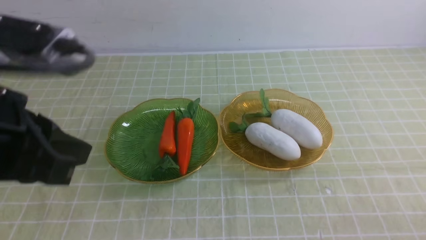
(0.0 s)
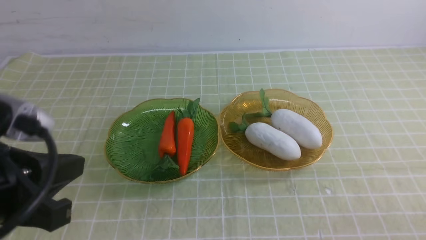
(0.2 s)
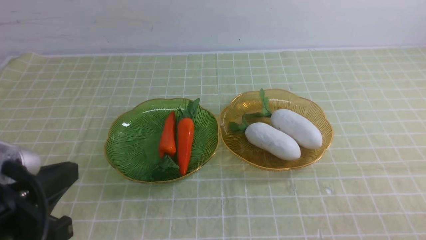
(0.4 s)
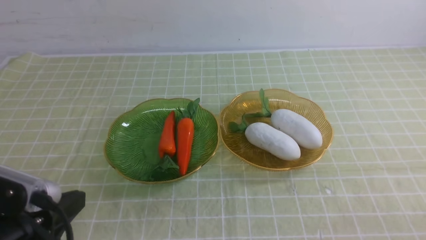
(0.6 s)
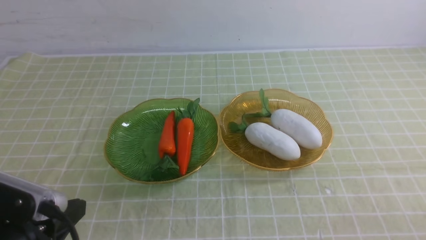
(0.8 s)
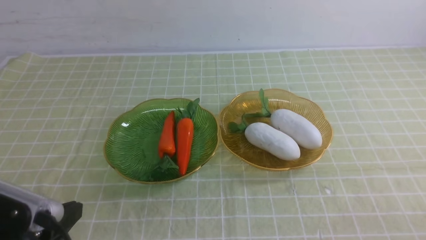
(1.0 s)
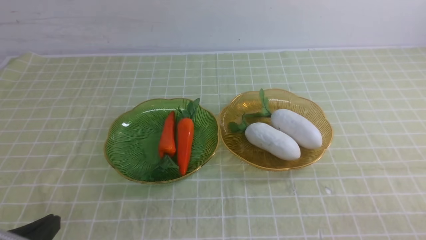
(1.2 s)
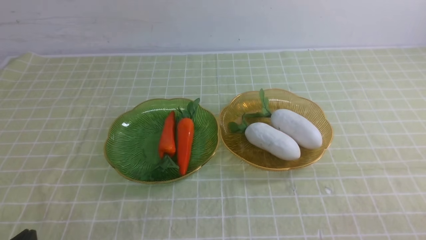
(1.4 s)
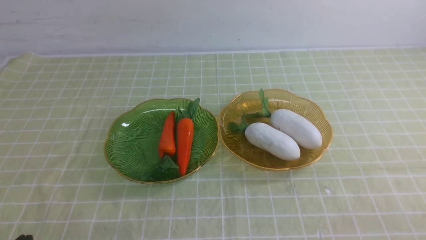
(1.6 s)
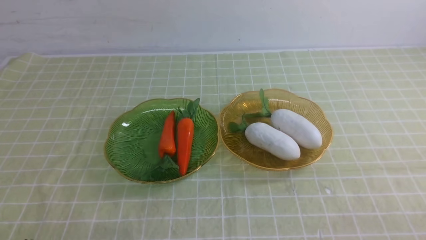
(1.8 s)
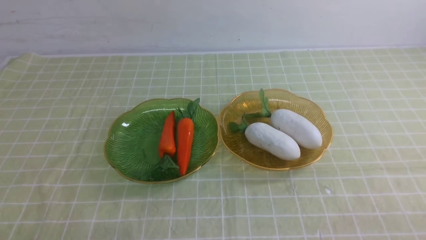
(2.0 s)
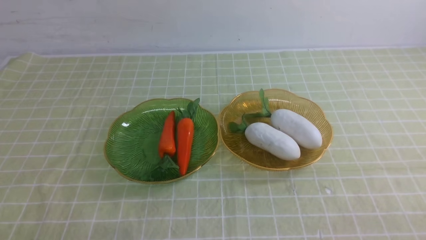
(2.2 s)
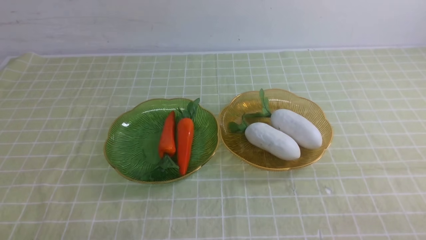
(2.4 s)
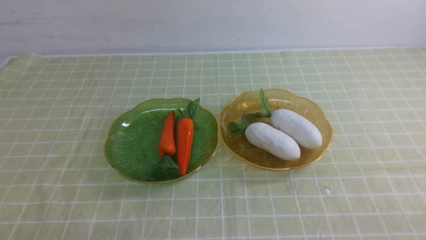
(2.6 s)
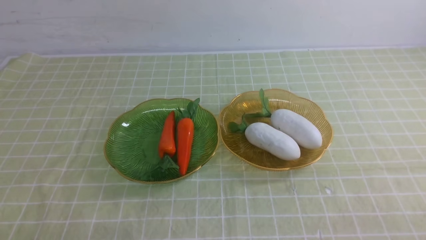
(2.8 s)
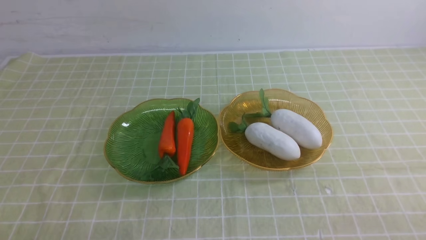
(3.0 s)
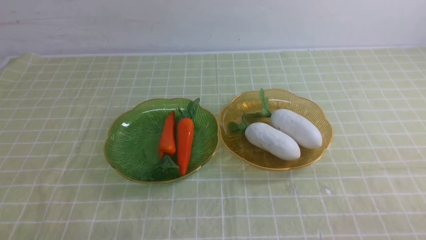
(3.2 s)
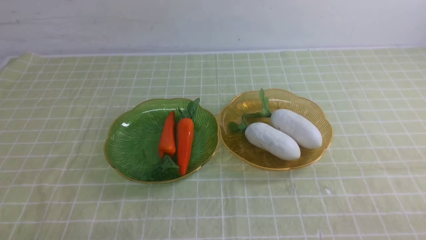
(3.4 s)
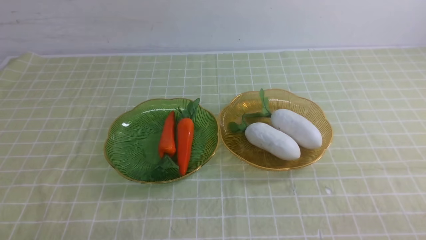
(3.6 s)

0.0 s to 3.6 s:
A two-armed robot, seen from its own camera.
0.0 to 1.8 s: The left gripper travels downward and backward by some 25 cm.
1.8 to 3.6 s: The two grippers keep their place.

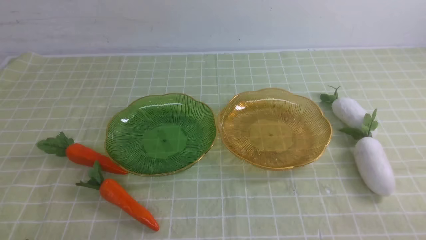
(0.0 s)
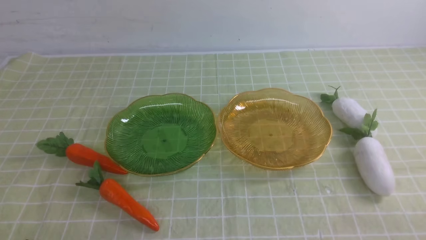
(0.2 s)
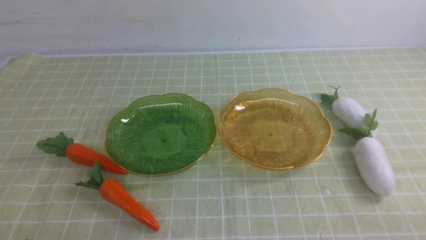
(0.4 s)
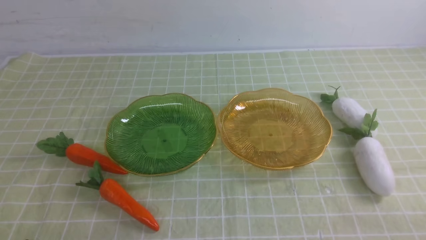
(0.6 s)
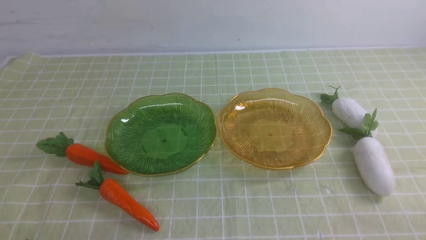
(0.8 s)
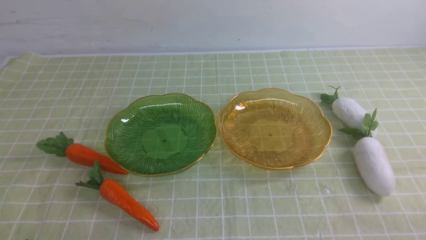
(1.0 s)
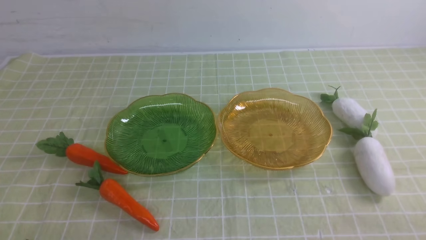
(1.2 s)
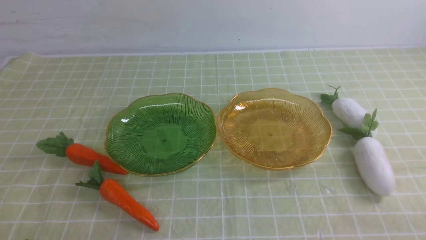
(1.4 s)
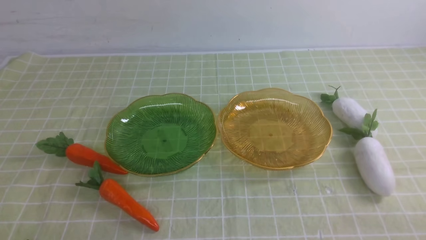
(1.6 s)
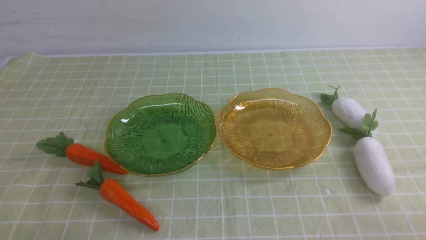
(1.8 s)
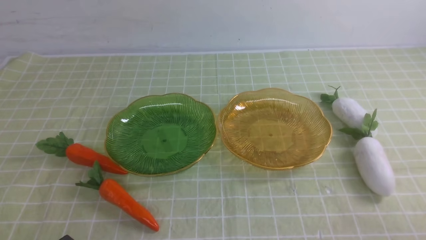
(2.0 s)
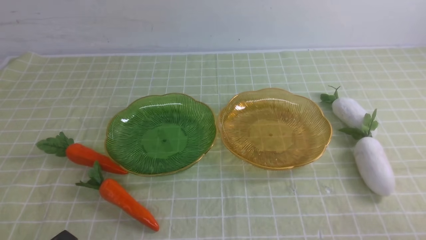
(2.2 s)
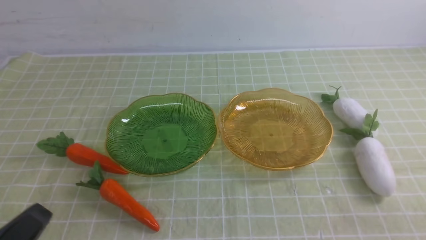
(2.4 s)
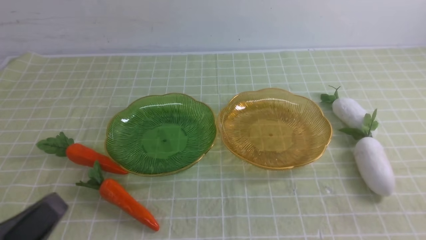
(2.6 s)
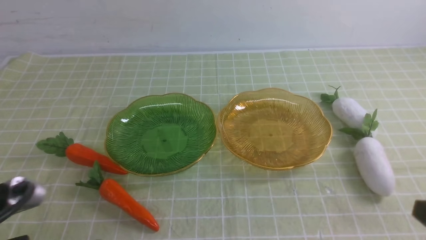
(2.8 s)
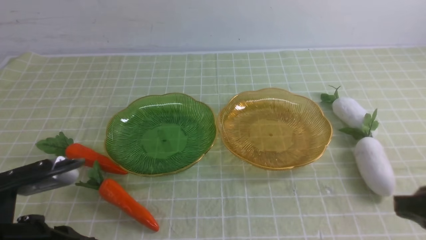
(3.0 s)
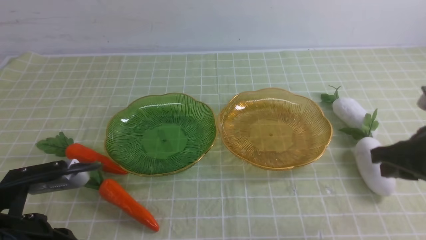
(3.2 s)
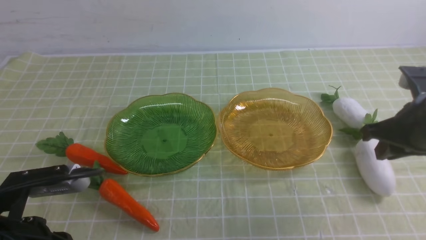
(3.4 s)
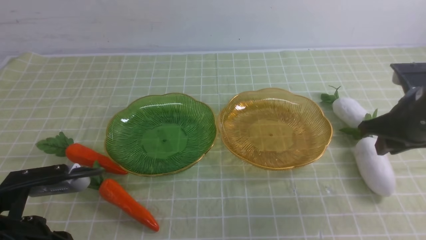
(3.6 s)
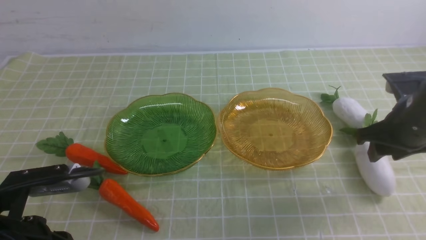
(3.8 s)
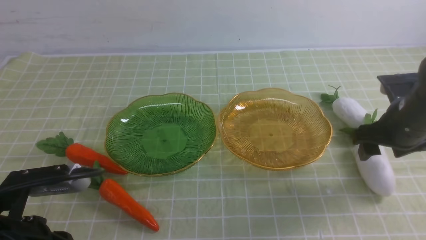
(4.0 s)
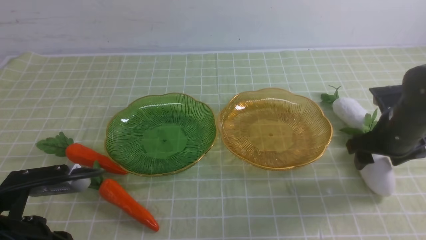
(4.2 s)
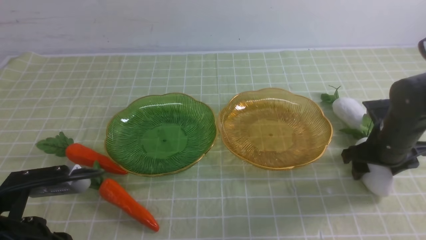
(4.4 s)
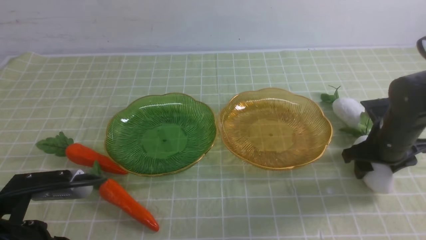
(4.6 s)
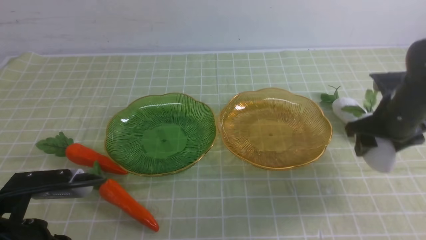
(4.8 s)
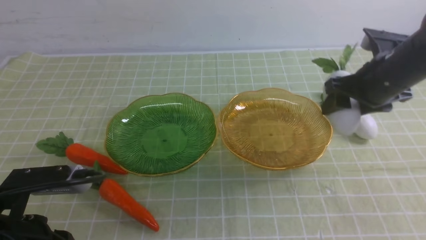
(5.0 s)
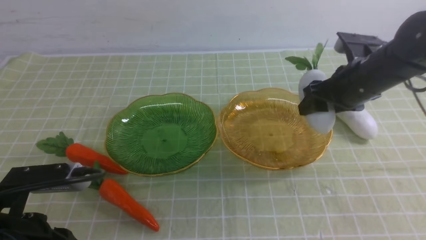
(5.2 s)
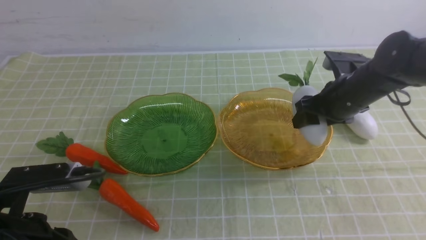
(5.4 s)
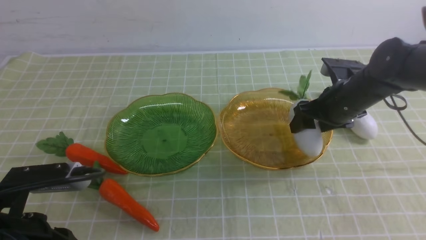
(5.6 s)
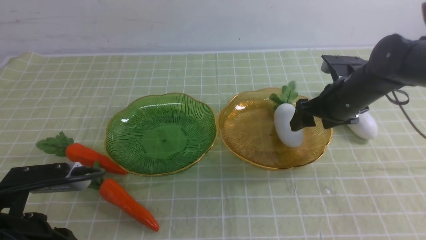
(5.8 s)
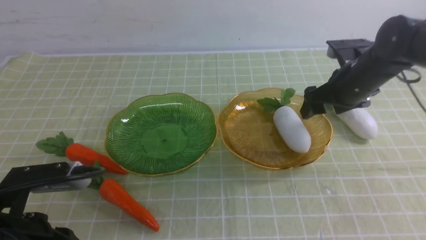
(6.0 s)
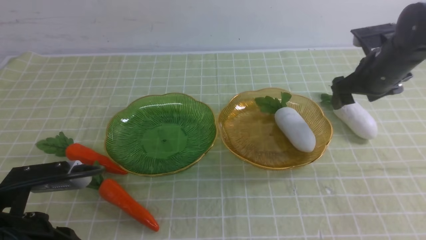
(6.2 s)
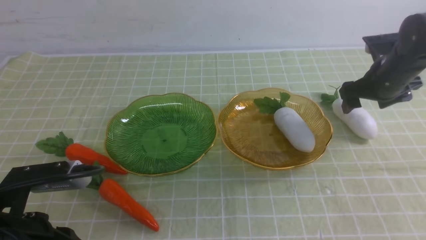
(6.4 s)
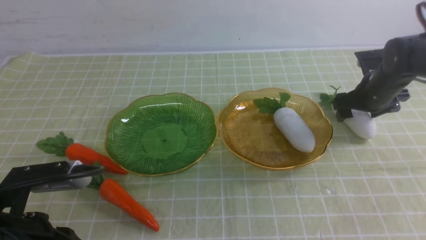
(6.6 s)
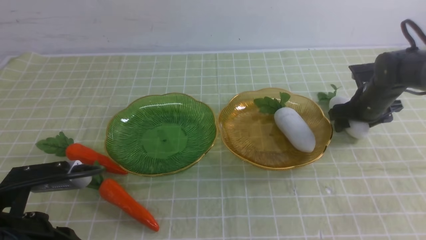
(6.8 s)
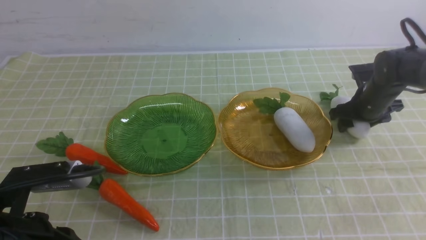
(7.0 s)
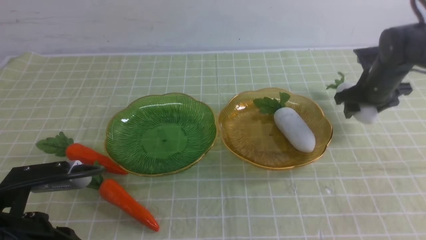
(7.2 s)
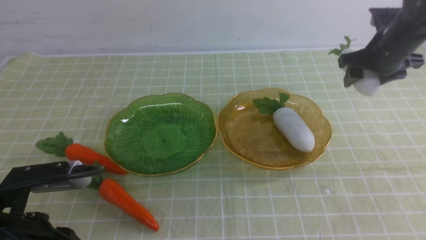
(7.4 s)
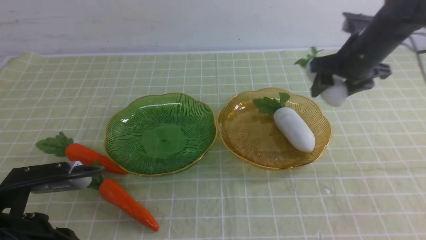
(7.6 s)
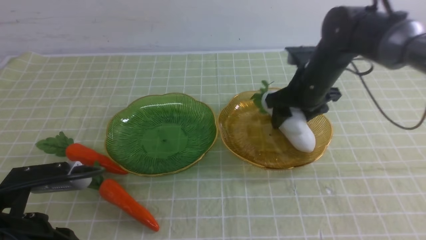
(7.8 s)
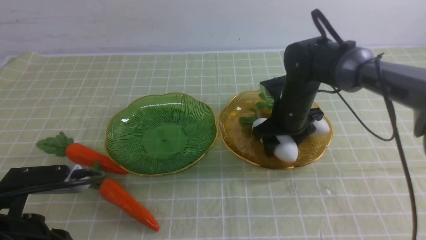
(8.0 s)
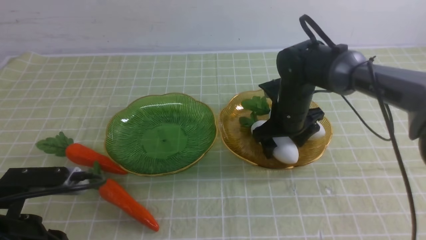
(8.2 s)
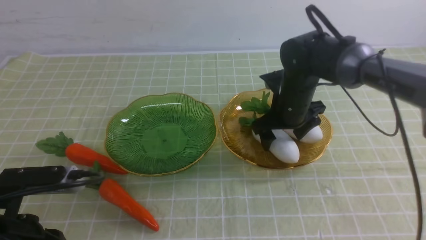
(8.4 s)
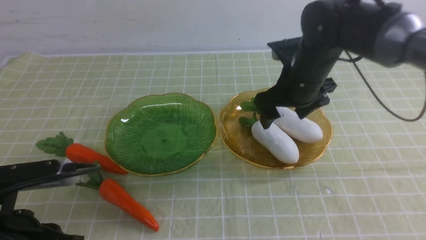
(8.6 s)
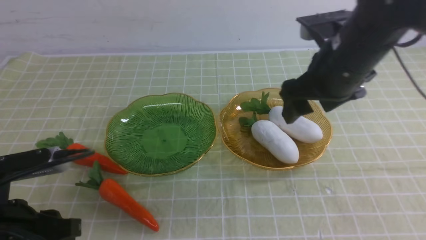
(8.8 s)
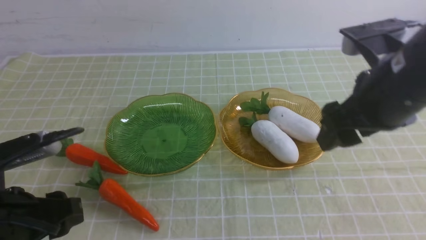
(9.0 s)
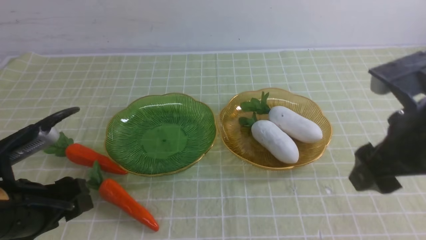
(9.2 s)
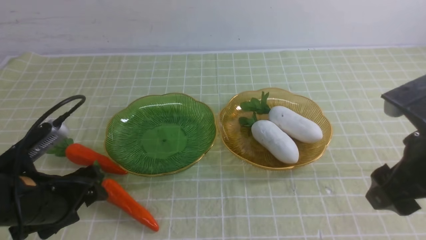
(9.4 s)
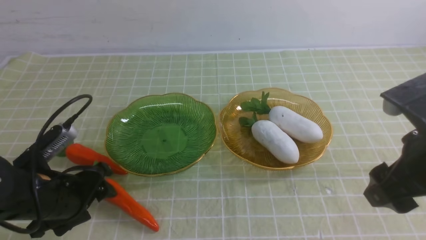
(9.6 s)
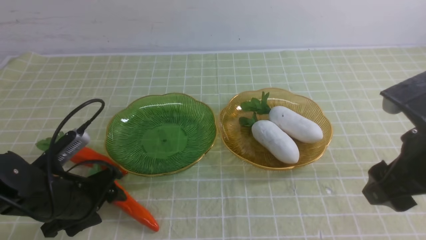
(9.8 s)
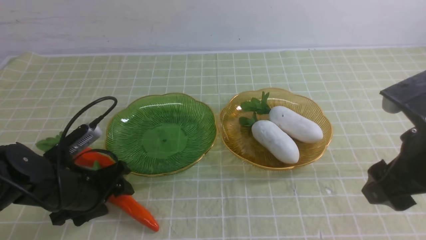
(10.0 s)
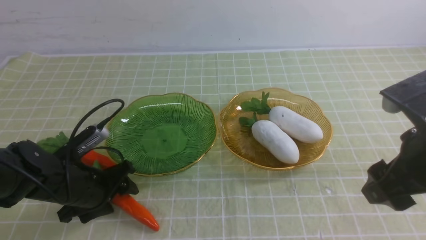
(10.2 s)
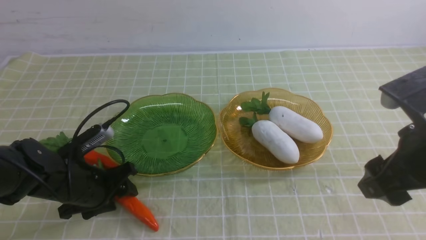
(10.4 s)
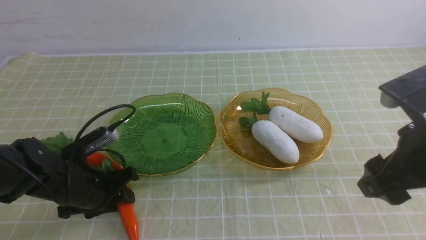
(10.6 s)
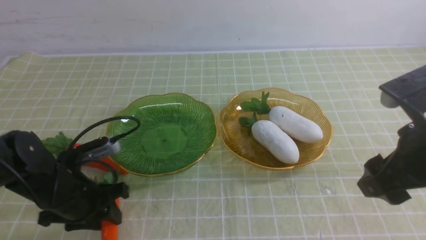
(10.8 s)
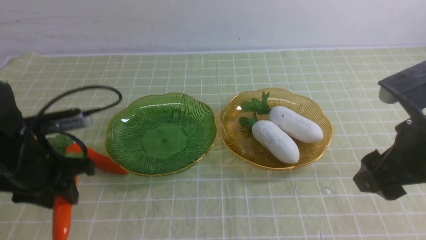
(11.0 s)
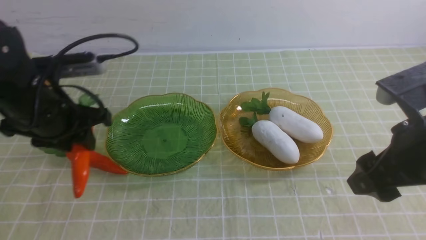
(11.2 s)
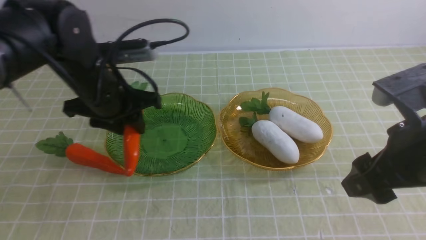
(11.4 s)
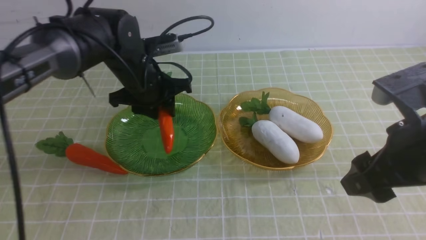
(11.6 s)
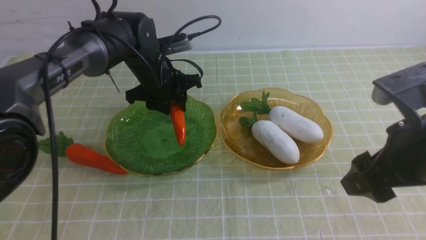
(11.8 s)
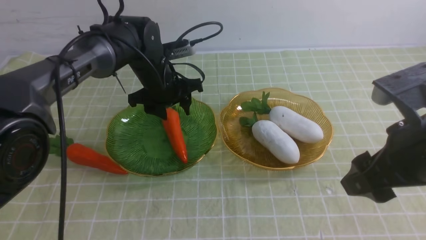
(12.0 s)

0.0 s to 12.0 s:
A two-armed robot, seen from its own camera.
Step, 0.0 to 6.2 s: use the right arm to grab a radish and put it into the right plate.
Step, 6.6 to 9.6 s: use the right arm to grab a radish and put it into the right plate.
1.6 to 3.0 s: The left gripper shifts roughly 10 cm upward and forward; the right gripper travels forward and upward by some 15 cm.
3.0 to 4.4 s: The right gripper shifts approximately 20 cm forward and downward, and opens its fingers.
4.4 to 6.0 s: The right gripper shifts approximately 10 cm forward and upward.
6.0 to 7.6 s: The right gripper moves some 5 cm downward and comes back.
7.6 to 9.0 s: The left gripper opens its fingers; the right gripper is displaced backward and upward by approximately 20 cm.
9.0 to 10.4 s: The right gripper shifts some 5 cm backward. The left gripper heads forward and downward, covering roughly 15 cm.
10.4 to 12.0 s: The left gripper goes some 25 cm forward, to the right and upward.

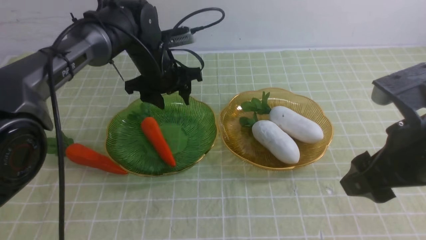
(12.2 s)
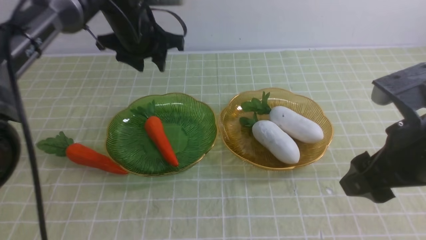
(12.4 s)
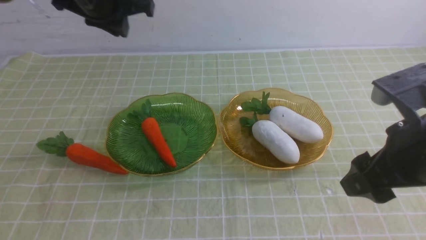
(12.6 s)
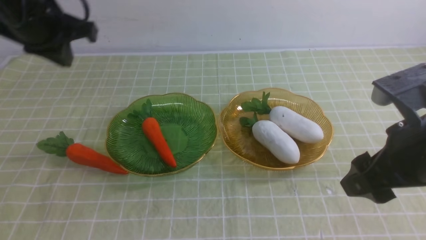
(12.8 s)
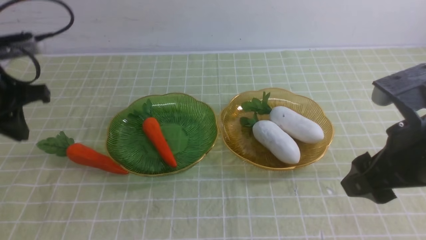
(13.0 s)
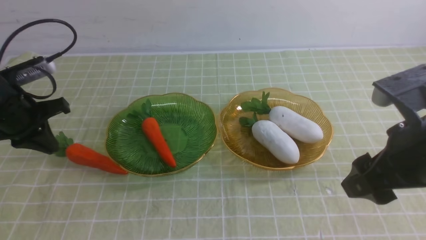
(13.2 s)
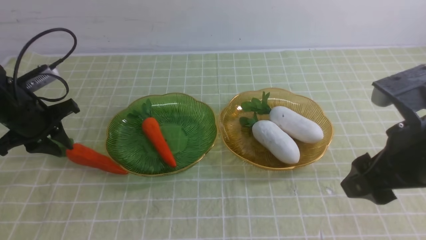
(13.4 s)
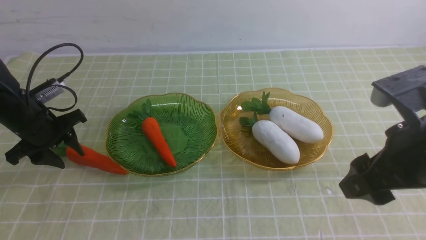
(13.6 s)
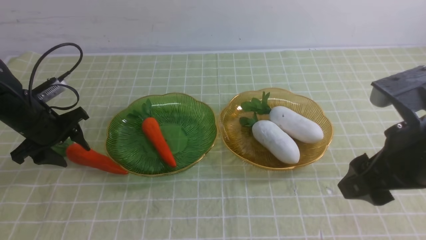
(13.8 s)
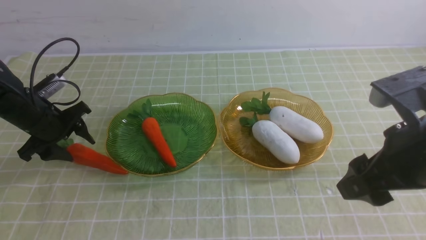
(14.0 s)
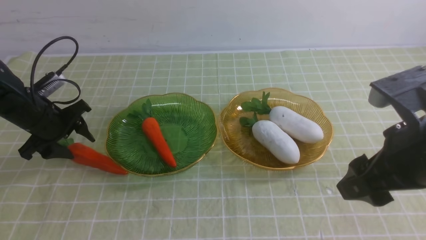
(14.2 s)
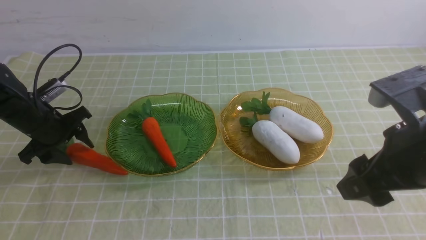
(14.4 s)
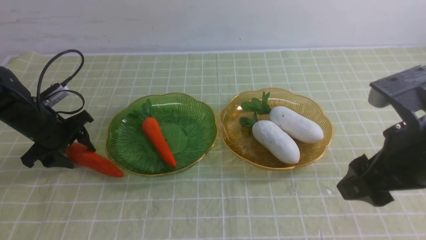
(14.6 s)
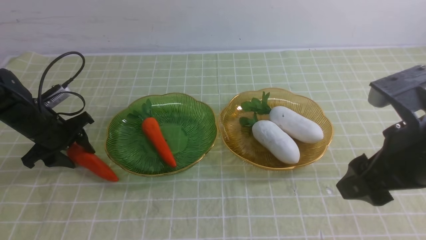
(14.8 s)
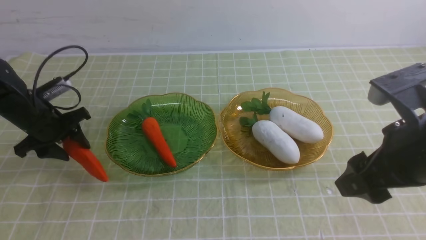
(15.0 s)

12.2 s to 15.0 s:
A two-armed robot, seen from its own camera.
12.2 to 13.6 s: The left gripper heads to the left and backward, covering some 20 cm, and closes and opens again.
13.6 to 15.0 s: The grippers stay close to where they were, moving slightly.
